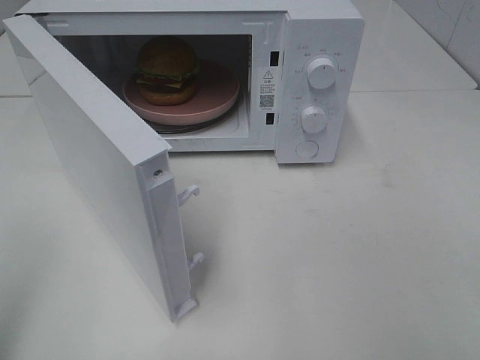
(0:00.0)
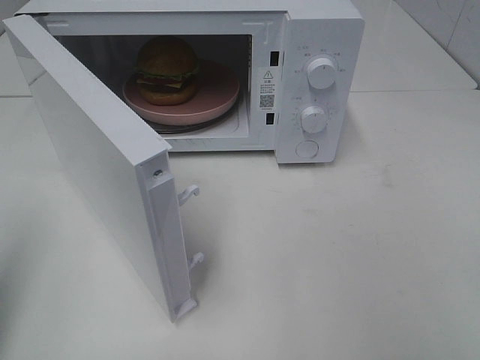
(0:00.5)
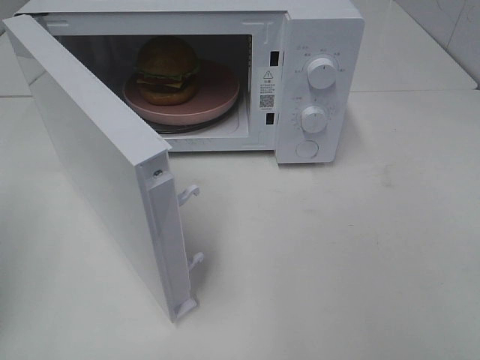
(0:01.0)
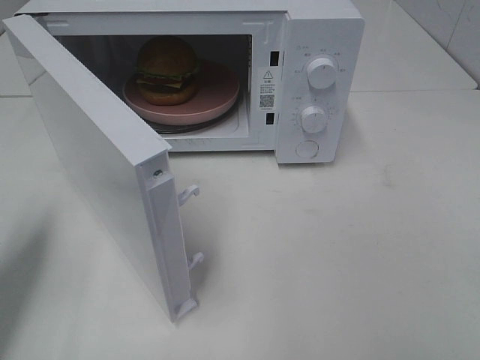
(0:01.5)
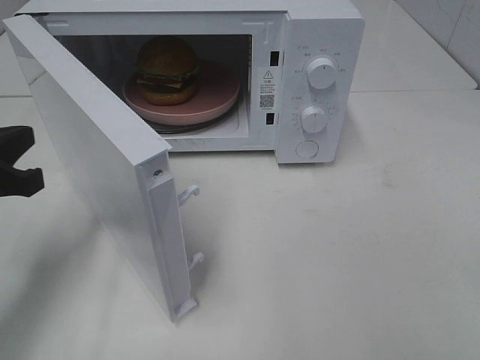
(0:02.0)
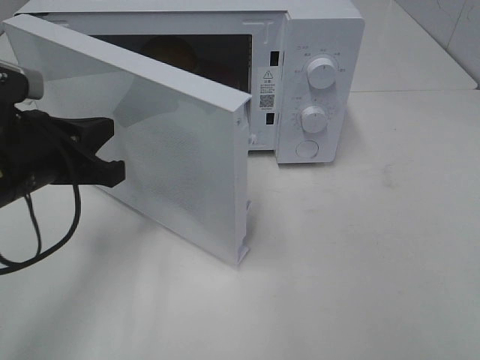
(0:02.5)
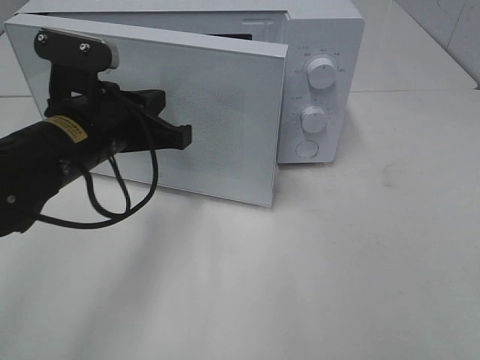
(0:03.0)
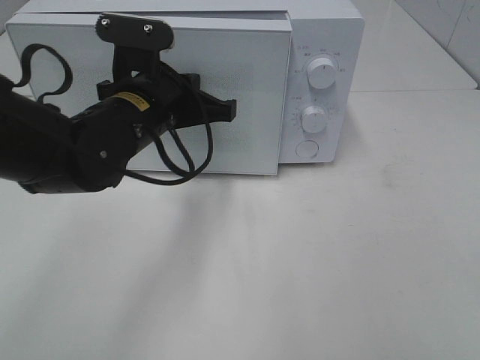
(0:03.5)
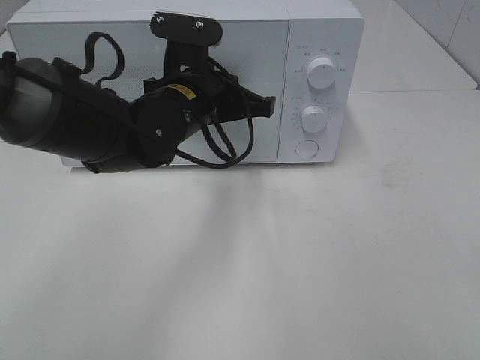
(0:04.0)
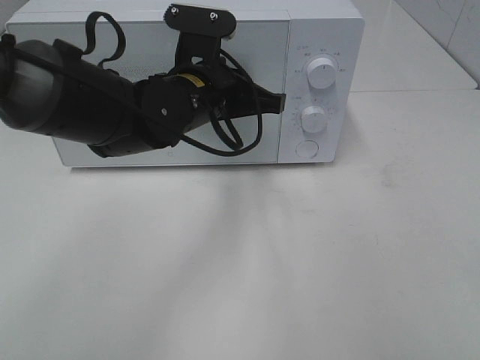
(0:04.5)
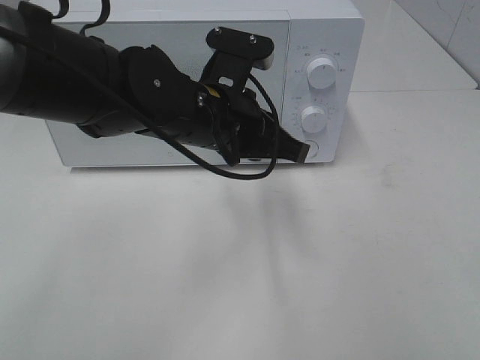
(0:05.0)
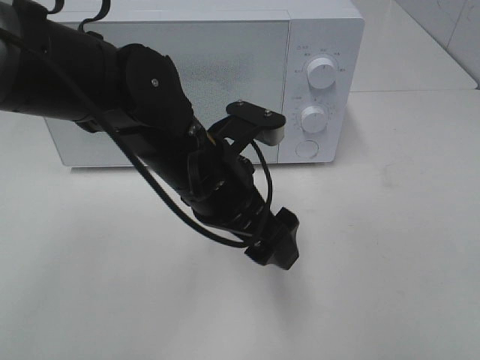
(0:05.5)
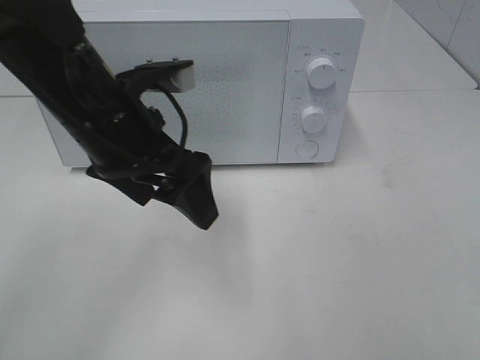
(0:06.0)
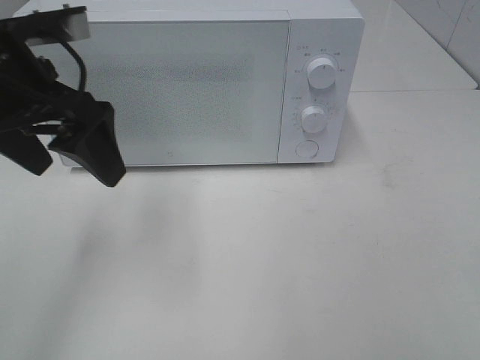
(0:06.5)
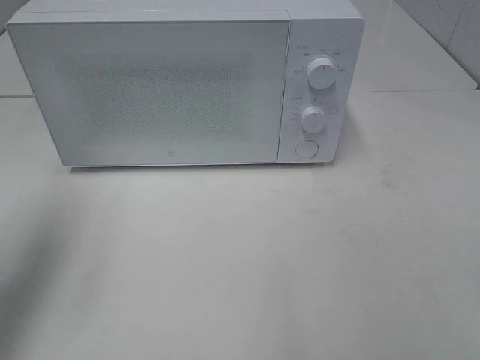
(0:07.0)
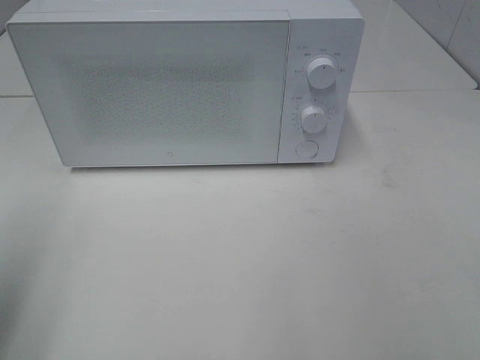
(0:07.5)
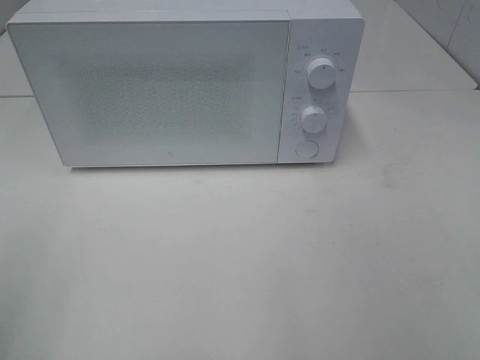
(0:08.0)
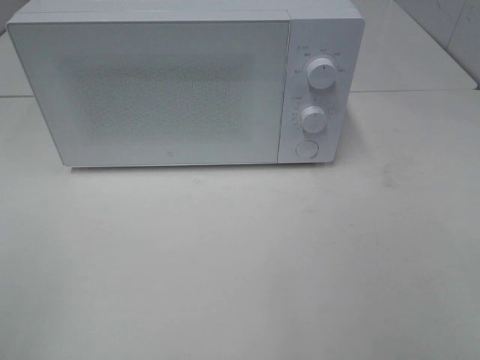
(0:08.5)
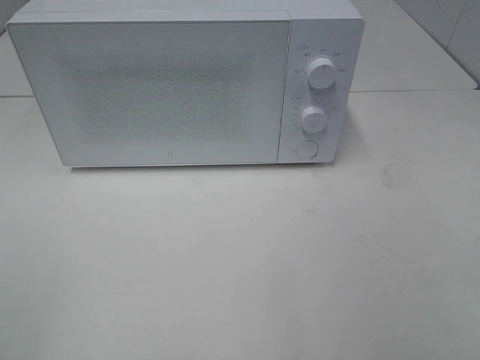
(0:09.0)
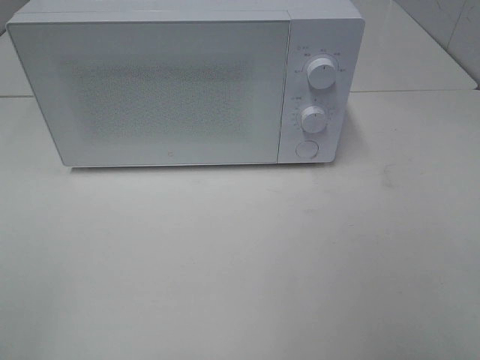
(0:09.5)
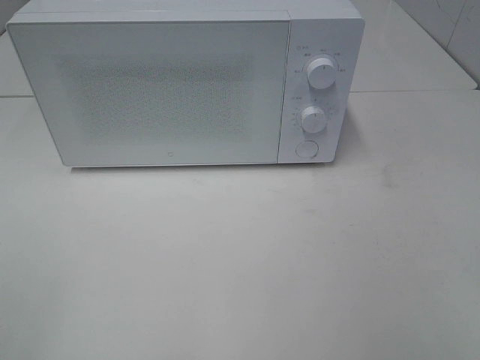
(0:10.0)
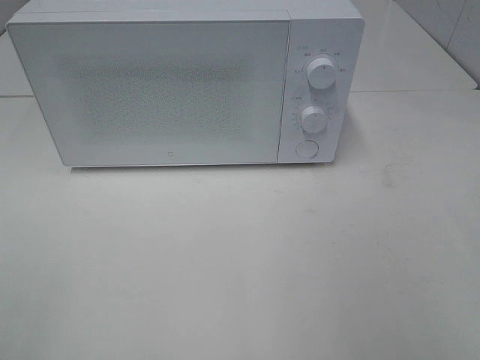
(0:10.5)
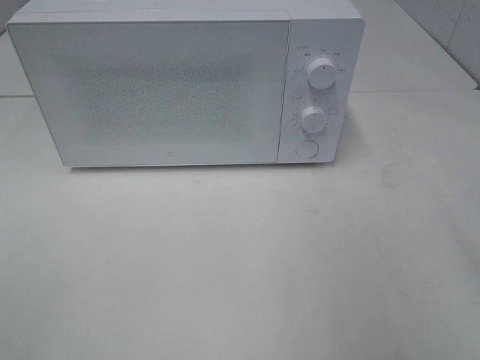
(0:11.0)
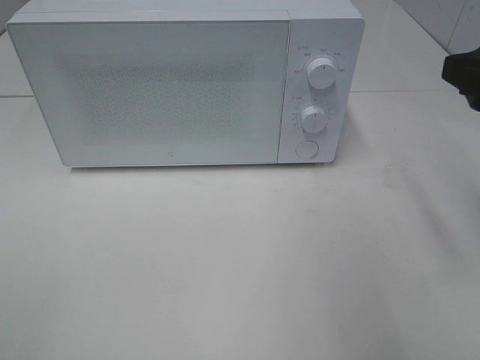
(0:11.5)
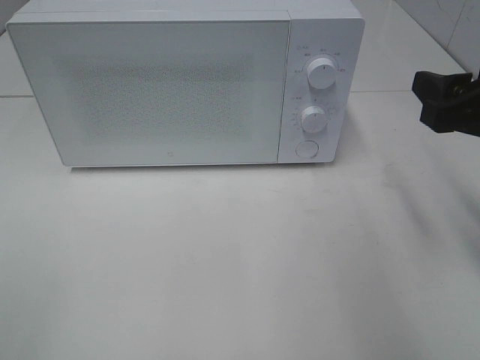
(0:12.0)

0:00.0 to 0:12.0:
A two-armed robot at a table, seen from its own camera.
Task of the whole recording: Heat the burger.
Step, 0:00.0 to 0:04.5: Left hand: close the microwave door.
0:00.0 to 0:02.0: The left gripper shifts about 20 cm forward and downward.
0:02.0 to 0:04.0: The left gripper travels to the right and forward by about 25 cm.
0:04.0 to 0:06.0: The left gripper shifts approximately 10 cm backward, to the left and upward, and opens its fingers.
0:06.0 to 0:08.0: The left gripper heads backward and to the left, covering about 30 cm.
0:10.0 to 0:12.0: The right gripper moves forward, about 20 cm.

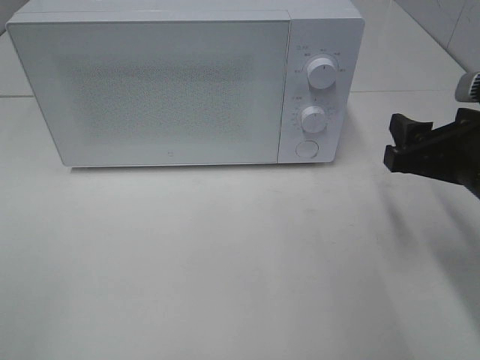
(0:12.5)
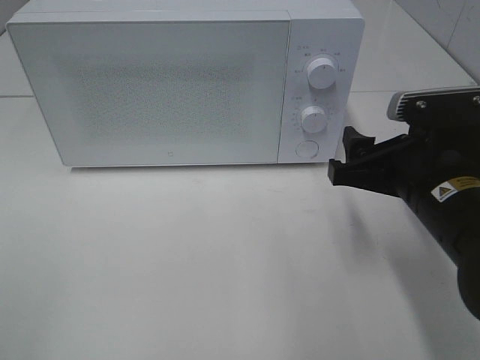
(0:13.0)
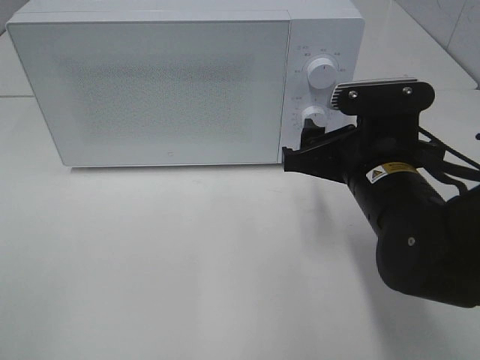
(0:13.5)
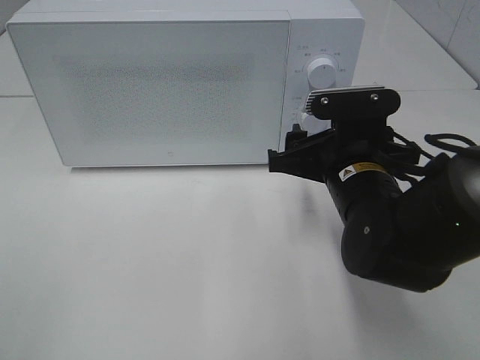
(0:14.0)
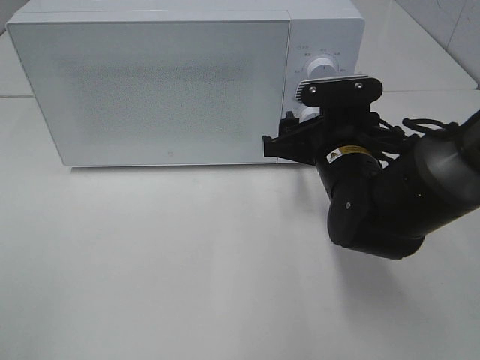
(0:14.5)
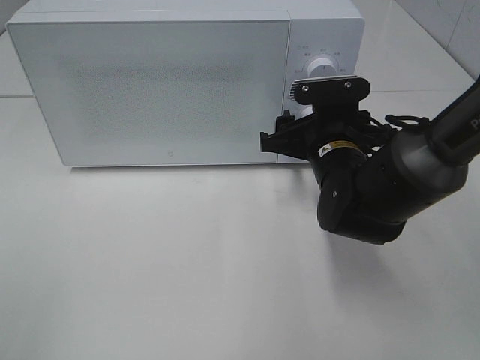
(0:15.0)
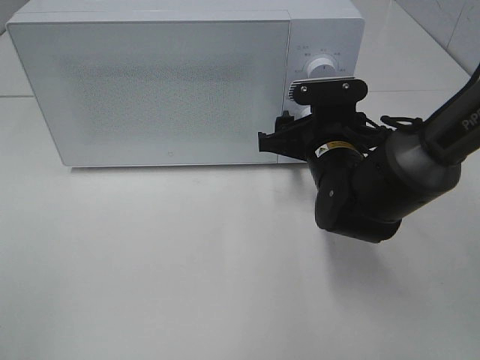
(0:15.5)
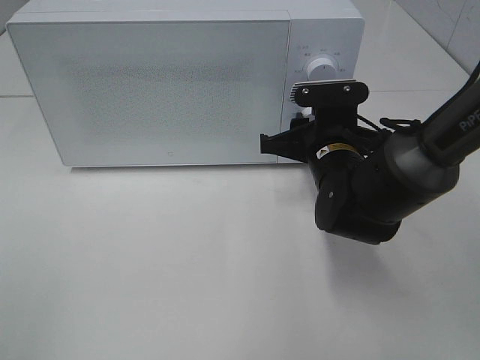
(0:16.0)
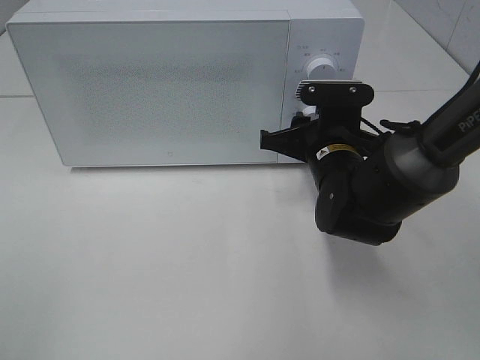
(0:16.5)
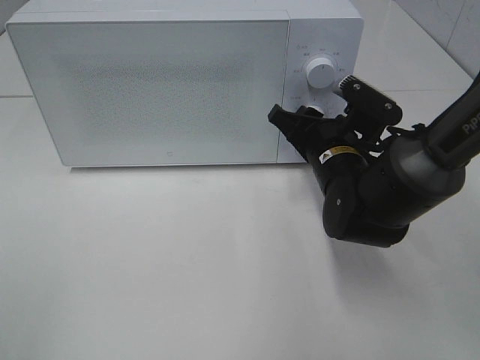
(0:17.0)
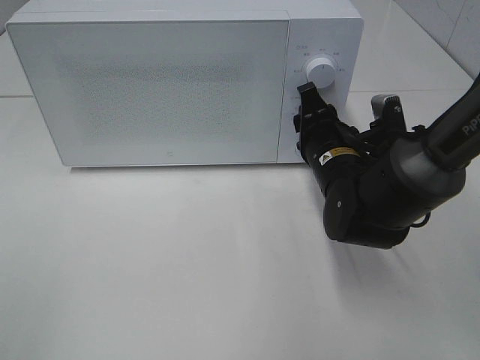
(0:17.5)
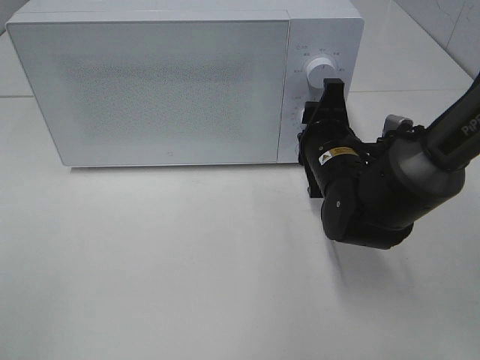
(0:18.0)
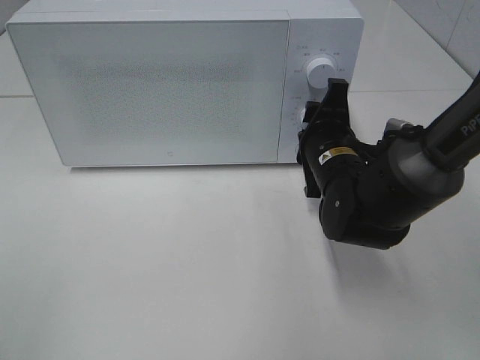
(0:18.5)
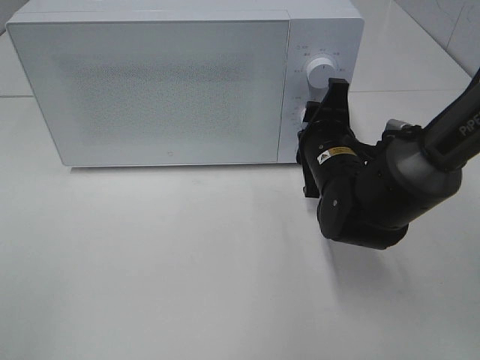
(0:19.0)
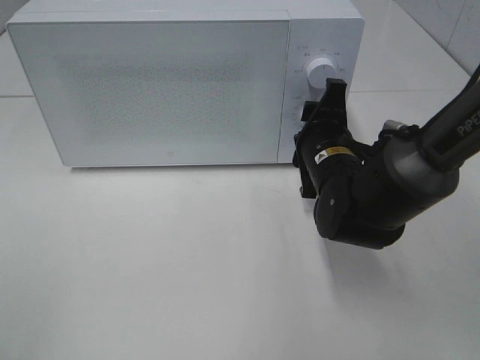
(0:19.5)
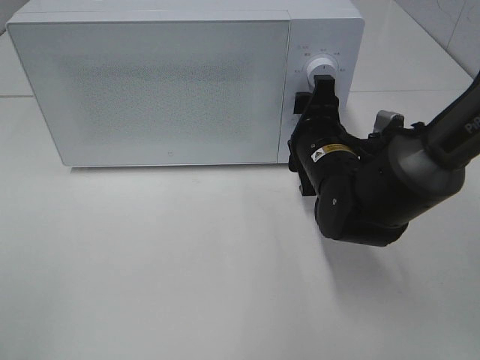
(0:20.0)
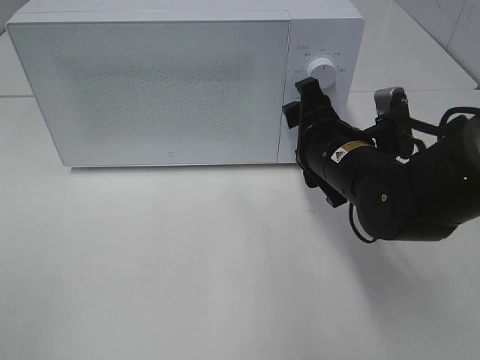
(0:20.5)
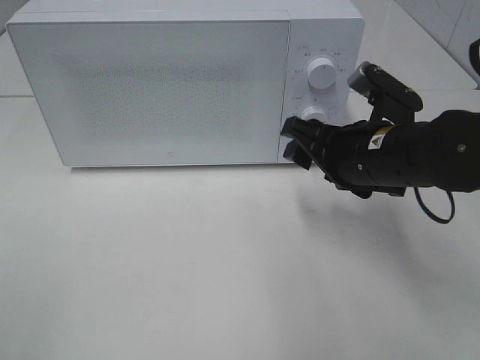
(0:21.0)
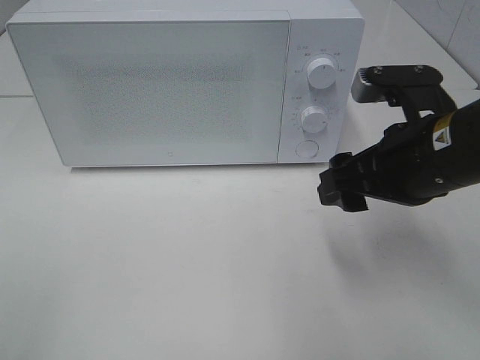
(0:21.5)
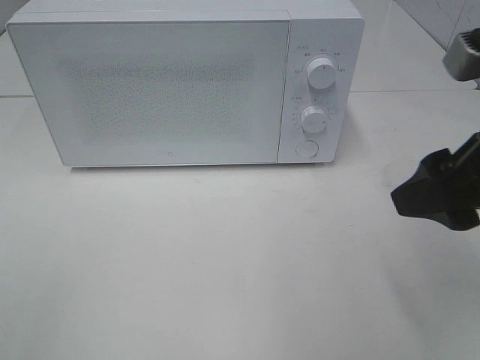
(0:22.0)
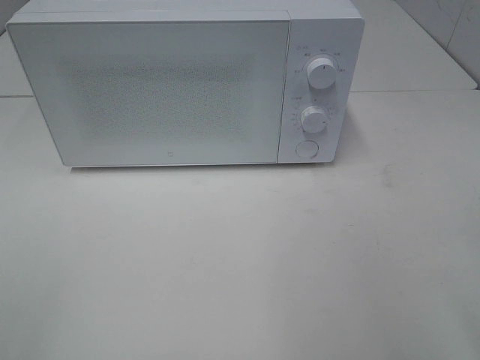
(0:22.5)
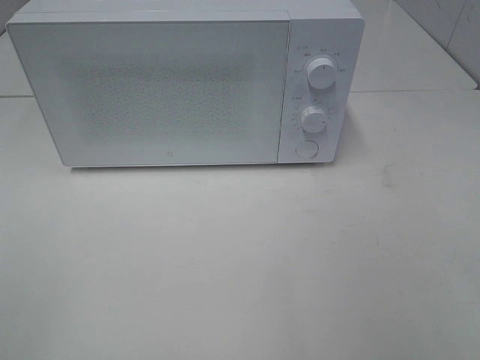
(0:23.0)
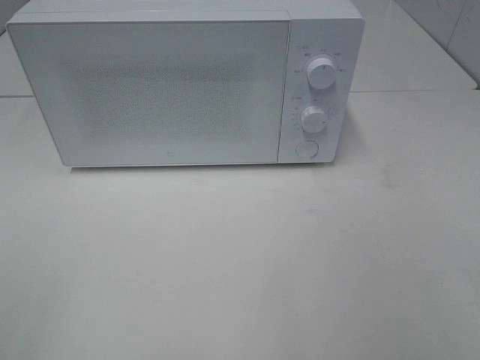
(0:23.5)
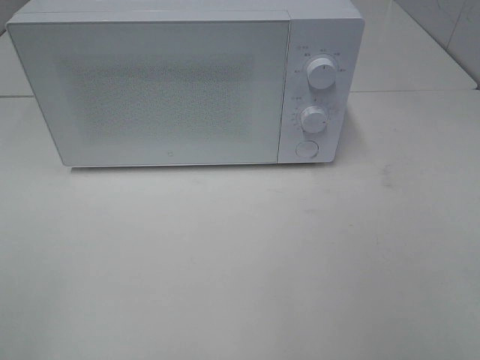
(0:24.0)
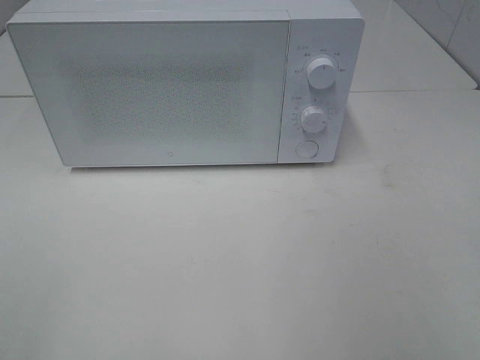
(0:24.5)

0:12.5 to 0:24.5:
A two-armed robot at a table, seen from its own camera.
Task of the whole recording: Heat the burger.
Step, 0:12.5 to 0:19.5: Right hand: twist timer button.
0:12.5 to 0:14.5: The right gripper shifts about 15 cm to the left and forward.
0:14.5 to 0:16.5: The right gripper closes up.
0:20.5 to 0:22.5: The right gripper is displaced backward, upward and to the right by roughly 30 cm.

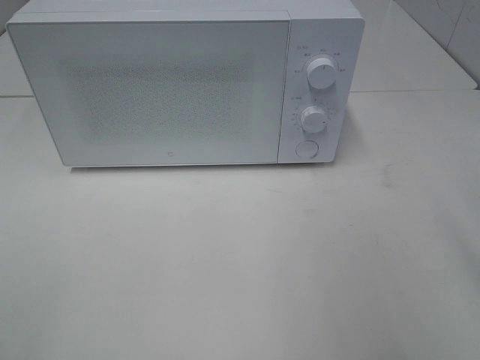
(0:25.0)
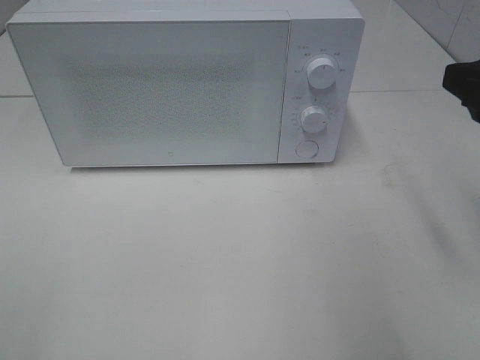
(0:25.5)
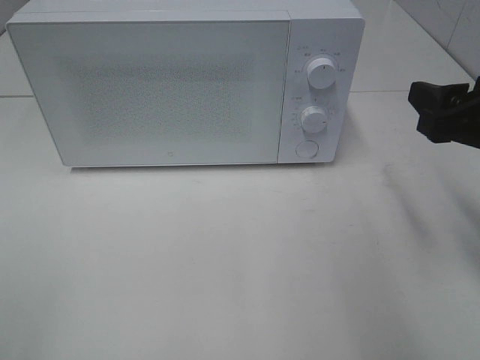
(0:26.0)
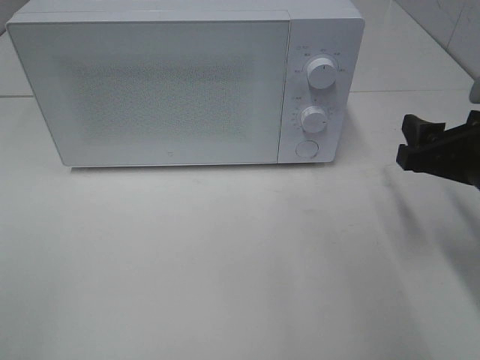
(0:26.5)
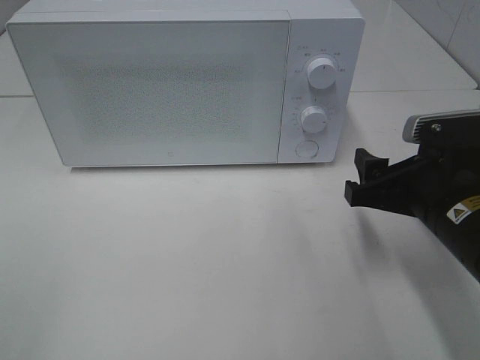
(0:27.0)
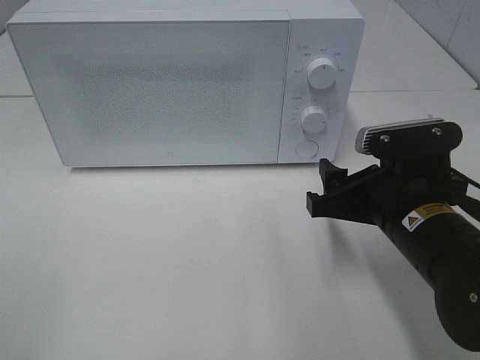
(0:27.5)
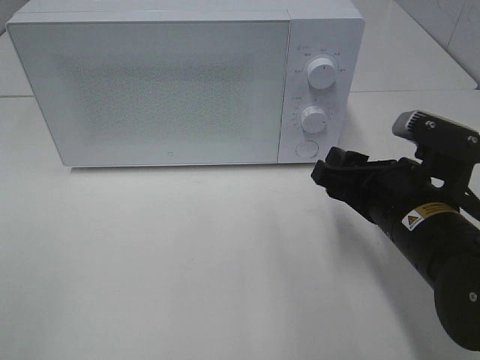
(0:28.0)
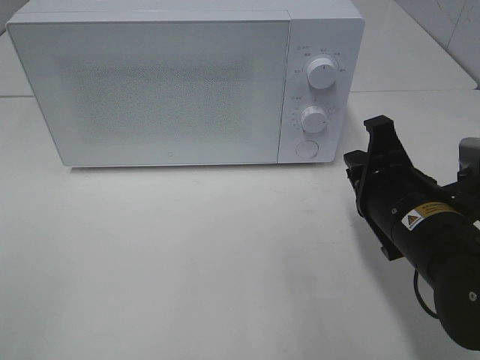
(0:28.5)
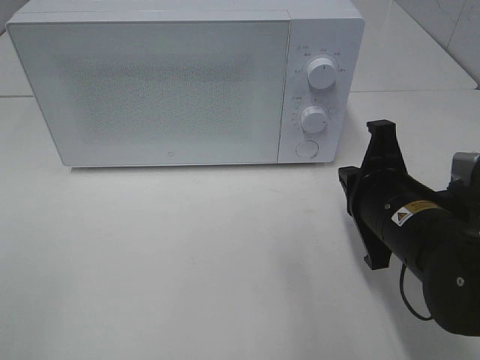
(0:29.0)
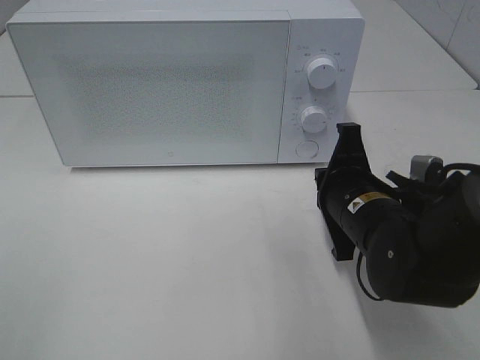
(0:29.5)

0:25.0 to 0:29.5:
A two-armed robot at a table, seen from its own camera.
Task of the whole recording: Heat the burger.
0:25.0 to 0:27.0: The right gripper moves downward, forward and to the left, approximately 20 cm.
0:27.0 to 0:29.5: The right gripper moves to the left, about 5 cm, and closes up.
